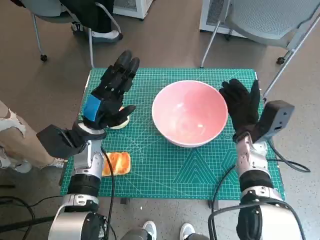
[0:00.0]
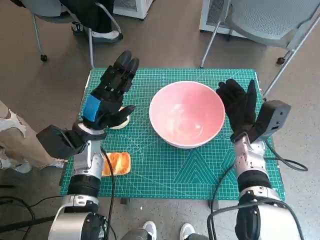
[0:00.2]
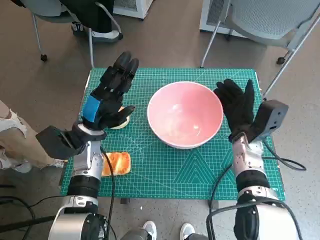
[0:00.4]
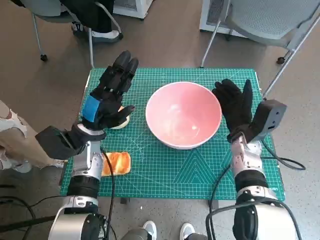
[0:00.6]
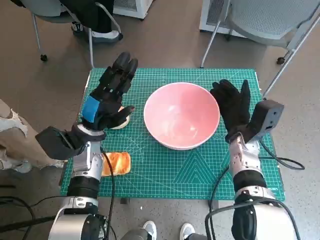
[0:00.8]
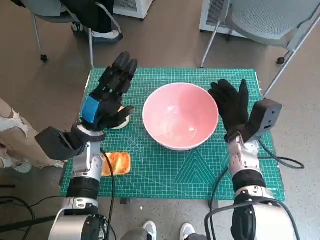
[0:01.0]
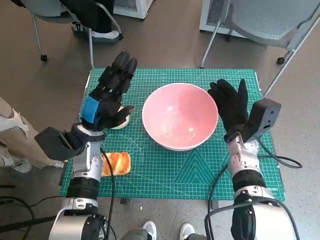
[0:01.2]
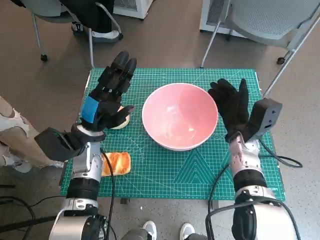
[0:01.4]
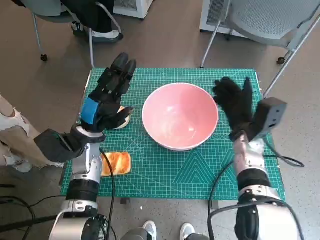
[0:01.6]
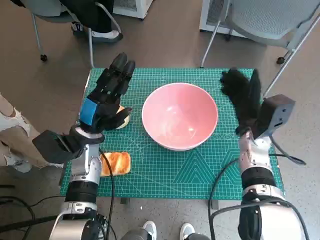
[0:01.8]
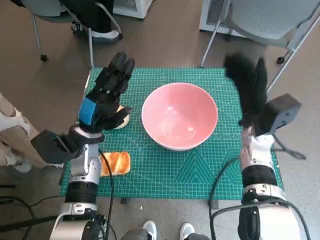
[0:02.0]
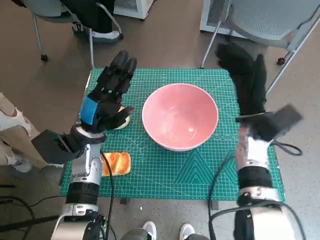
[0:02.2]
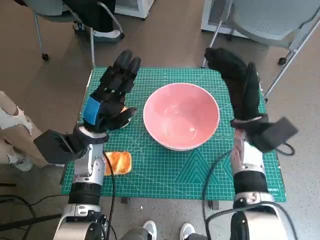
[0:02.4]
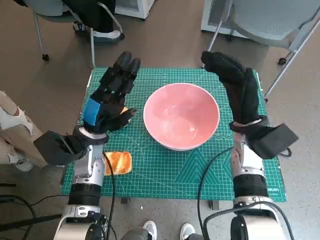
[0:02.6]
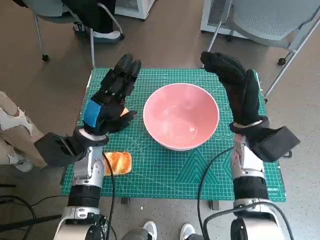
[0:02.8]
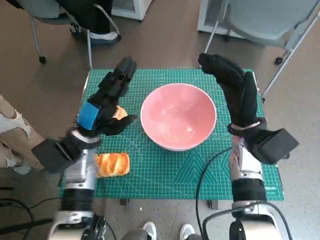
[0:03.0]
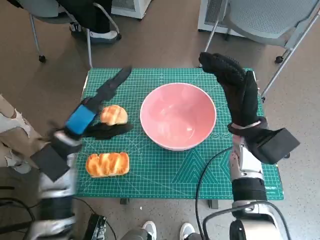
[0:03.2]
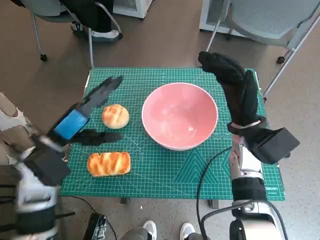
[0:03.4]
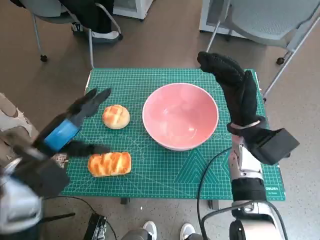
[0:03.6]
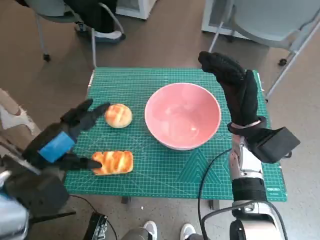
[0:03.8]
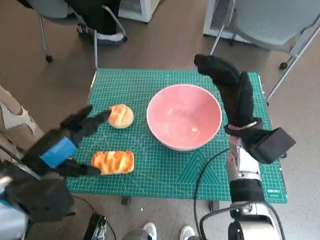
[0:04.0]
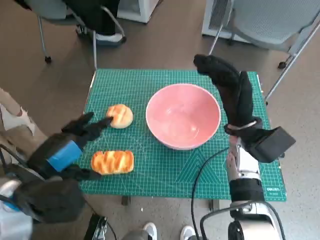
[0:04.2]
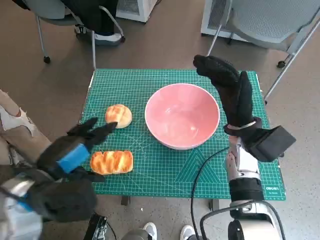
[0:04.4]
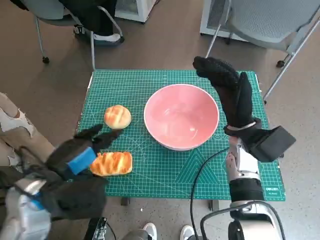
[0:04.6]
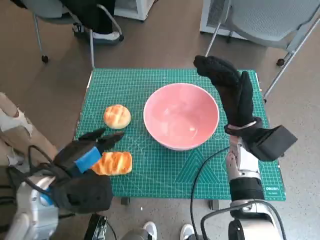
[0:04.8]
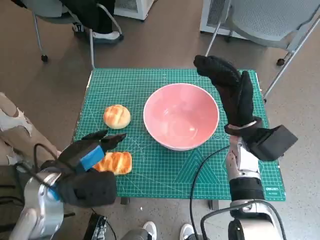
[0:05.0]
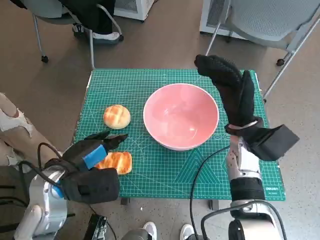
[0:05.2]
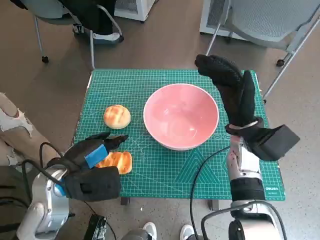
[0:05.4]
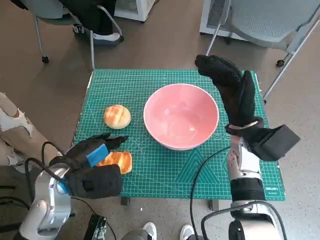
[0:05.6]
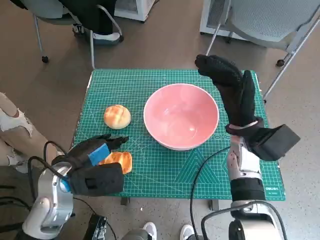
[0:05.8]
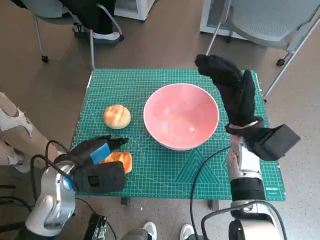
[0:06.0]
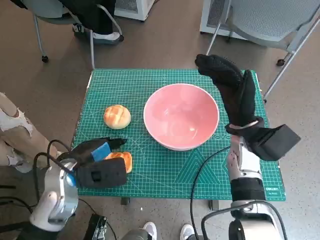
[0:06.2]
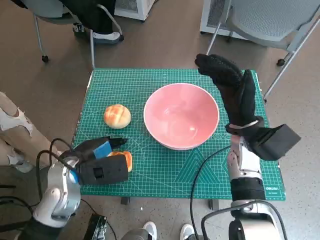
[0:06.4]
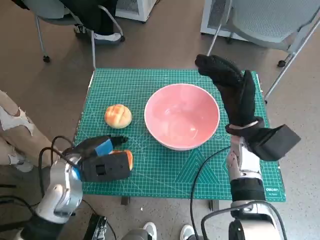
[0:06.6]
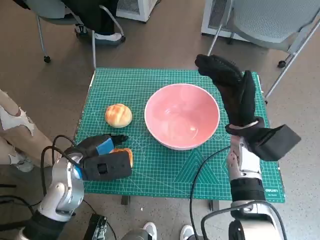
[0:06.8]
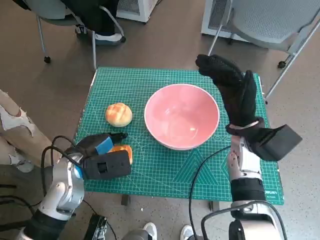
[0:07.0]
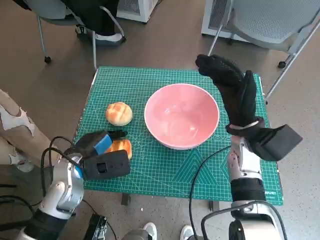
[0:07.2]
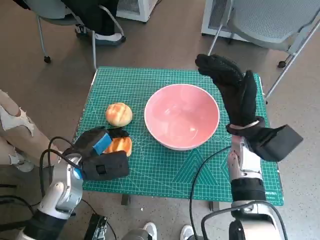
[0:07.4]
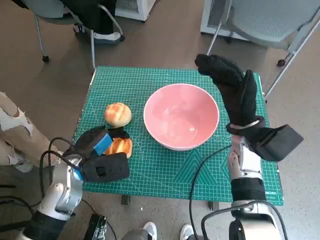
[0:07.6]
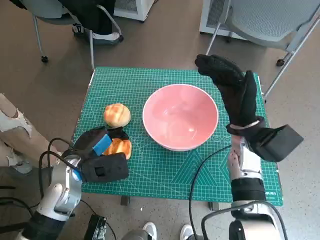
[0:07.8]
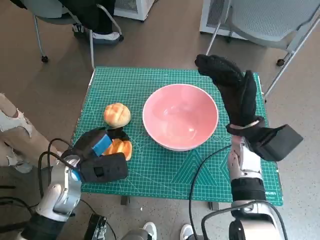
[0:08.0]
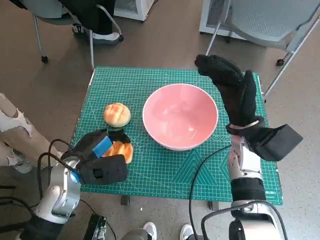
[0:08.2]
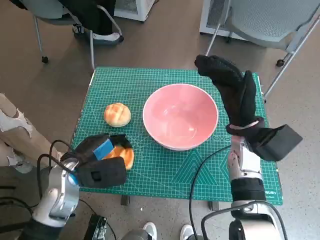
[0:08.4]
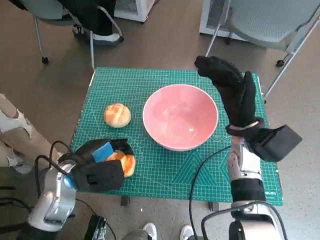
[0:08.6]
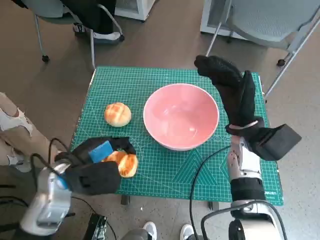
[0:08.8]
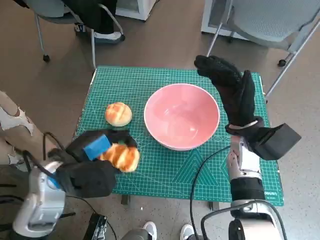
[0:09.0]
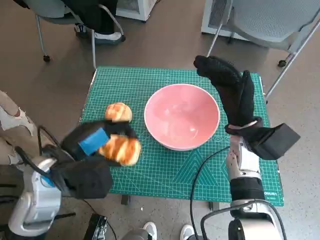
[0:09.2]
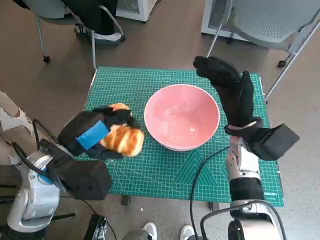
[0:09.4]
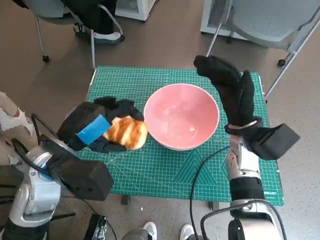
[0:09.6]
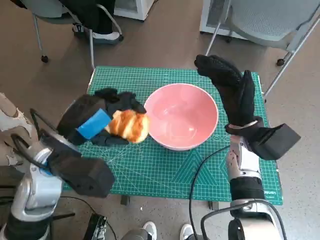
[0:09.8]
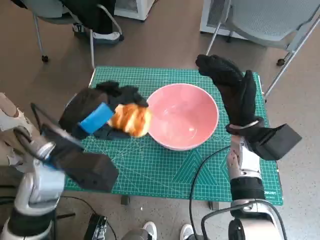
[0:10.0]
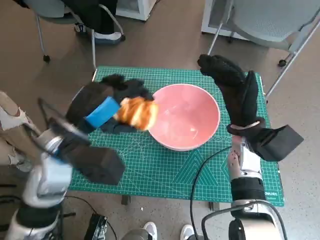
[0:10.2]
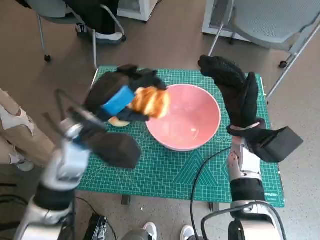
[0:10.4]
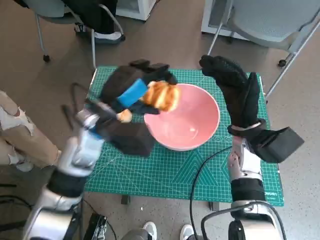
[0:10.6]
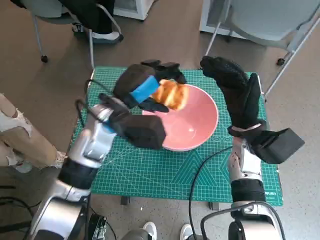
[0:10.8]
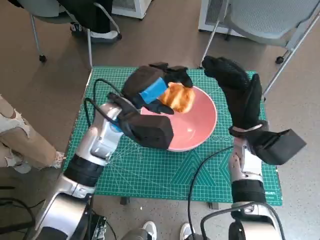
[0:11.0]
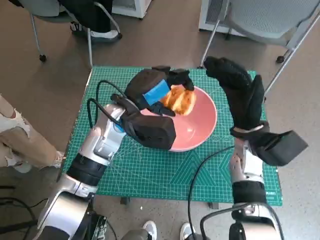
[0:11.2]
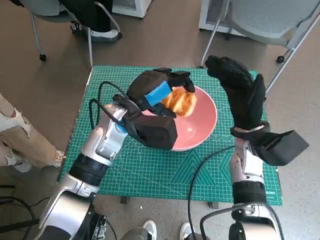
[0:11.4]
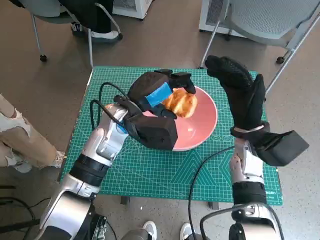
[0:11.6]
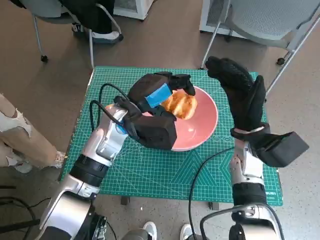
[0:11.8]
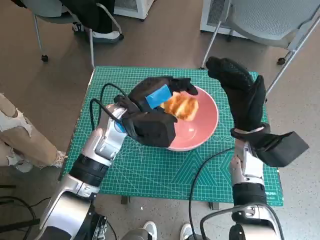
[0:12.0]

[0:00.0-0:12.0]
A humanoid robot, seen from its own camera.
Step, 0:01.8 to 0:07.6: Grasp the long bread with left hand.
0:00.0 to 0:01.6: The hands stay close to where they were, moving slightly.
0:01.6 to 0:03.0: The right hand shifts approximately 5 cm upward.
0:03.0 to 0:04.4: The left hand goes approximately 15 cm backward and upward.
0:04.4 to 0:06.0: The left hand shifts some 5 cm downward.
0:06.0 to 0:07.6: The hands stay close to where they were, moving slightly.
0:07.6 to 0:09.0: The left hand goes approximately 5 cm upward.
0:09.0 to 0:10.4: The left hand is displaced upward by roughly 5 cm.
0:10.4 to 0:12.0: The left hand is displaced forward and to the right by some 10 cm.

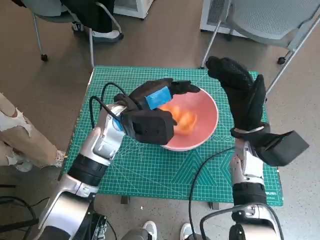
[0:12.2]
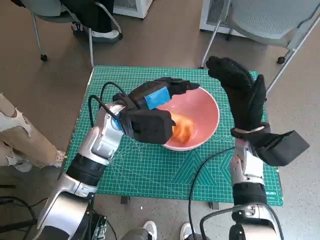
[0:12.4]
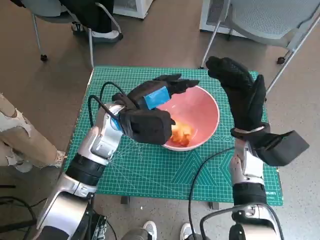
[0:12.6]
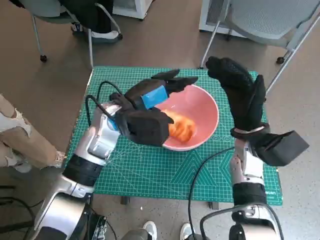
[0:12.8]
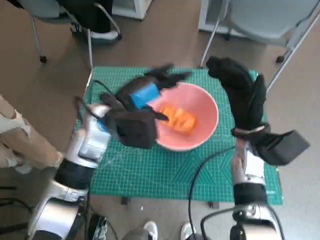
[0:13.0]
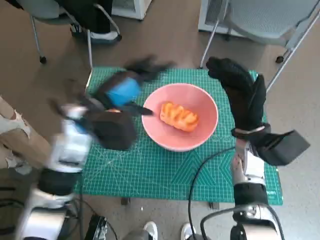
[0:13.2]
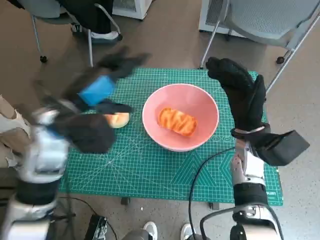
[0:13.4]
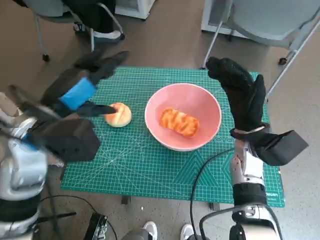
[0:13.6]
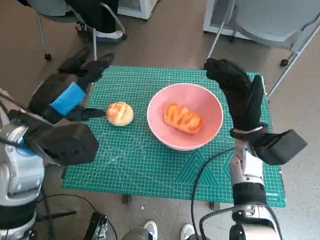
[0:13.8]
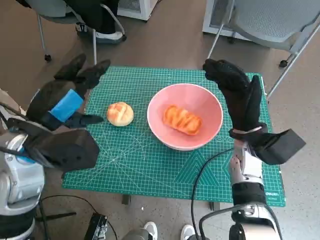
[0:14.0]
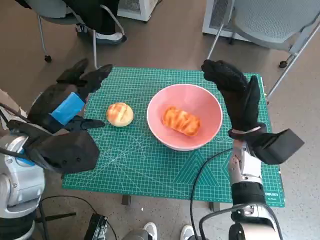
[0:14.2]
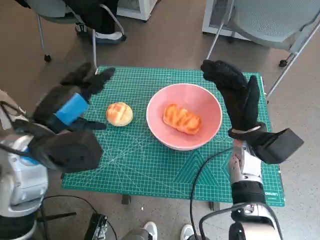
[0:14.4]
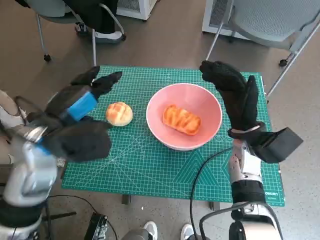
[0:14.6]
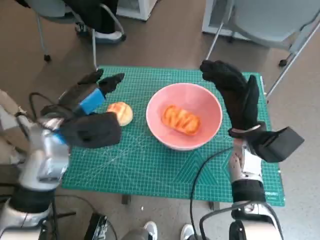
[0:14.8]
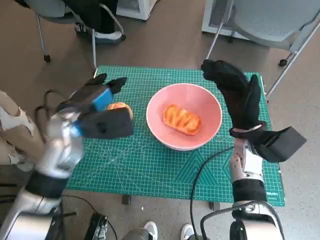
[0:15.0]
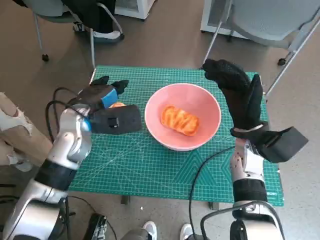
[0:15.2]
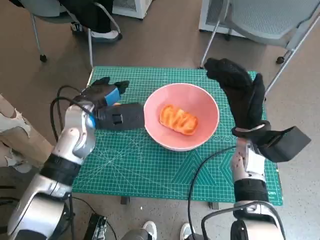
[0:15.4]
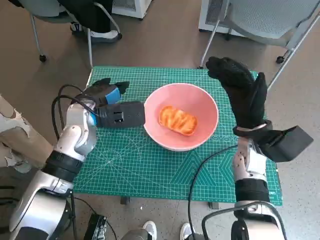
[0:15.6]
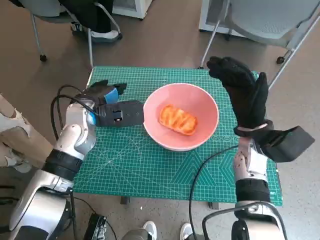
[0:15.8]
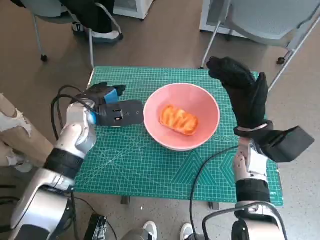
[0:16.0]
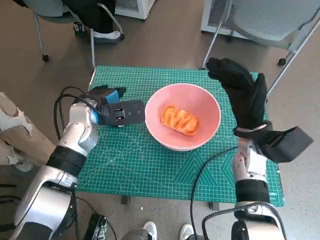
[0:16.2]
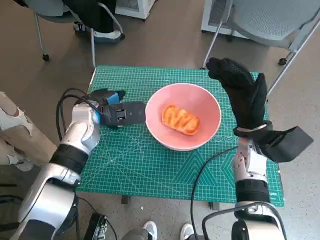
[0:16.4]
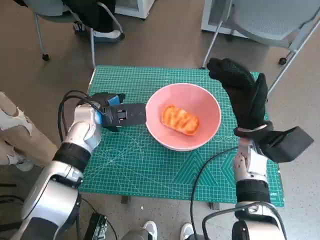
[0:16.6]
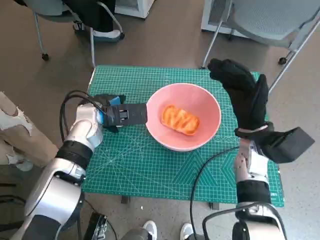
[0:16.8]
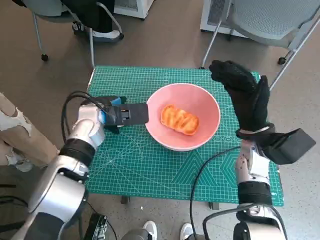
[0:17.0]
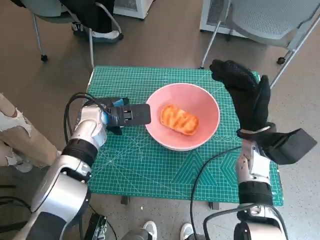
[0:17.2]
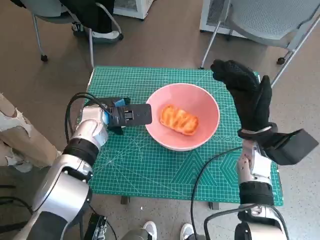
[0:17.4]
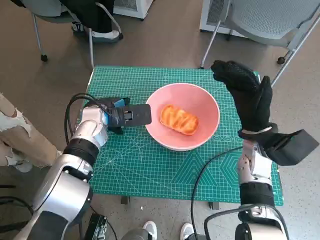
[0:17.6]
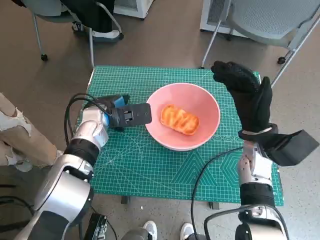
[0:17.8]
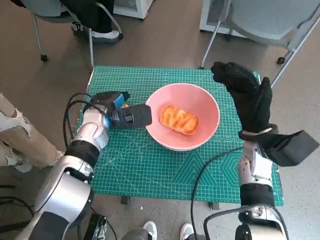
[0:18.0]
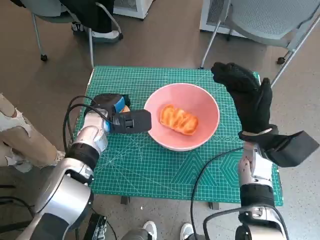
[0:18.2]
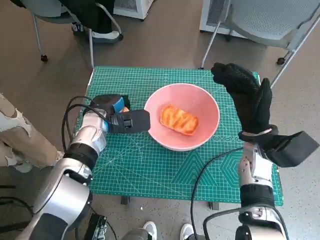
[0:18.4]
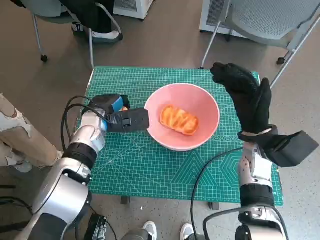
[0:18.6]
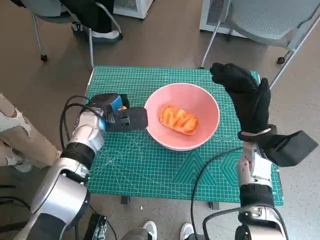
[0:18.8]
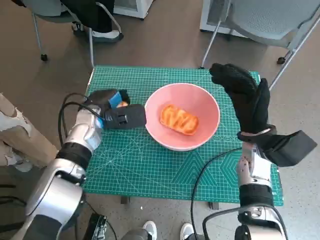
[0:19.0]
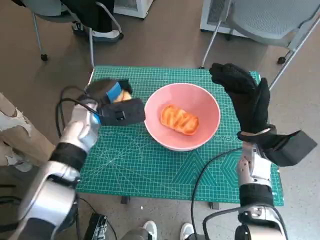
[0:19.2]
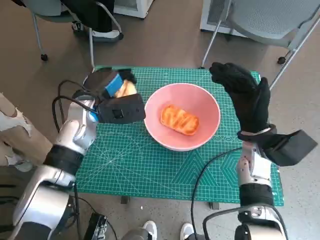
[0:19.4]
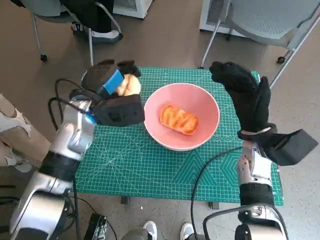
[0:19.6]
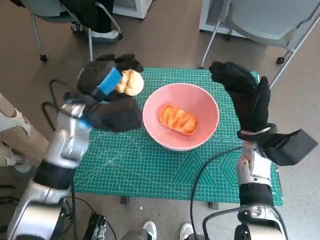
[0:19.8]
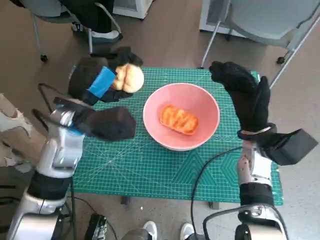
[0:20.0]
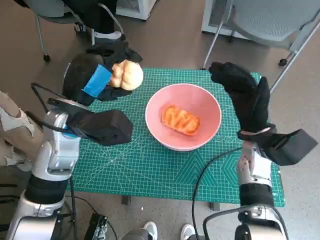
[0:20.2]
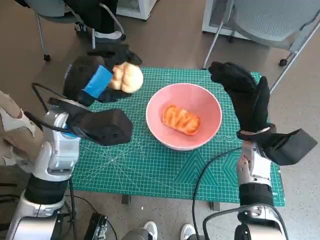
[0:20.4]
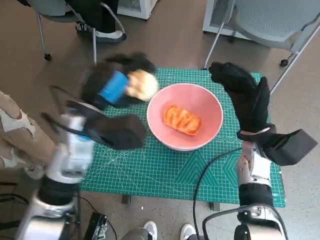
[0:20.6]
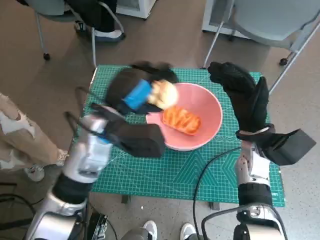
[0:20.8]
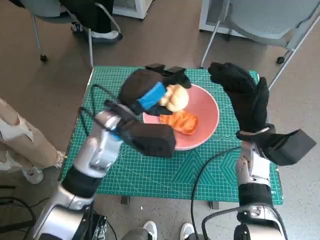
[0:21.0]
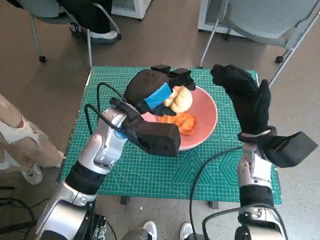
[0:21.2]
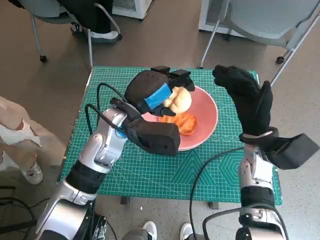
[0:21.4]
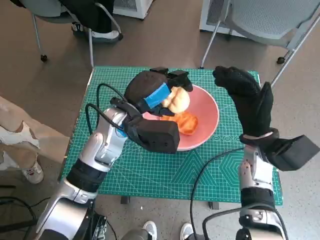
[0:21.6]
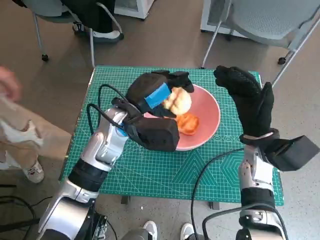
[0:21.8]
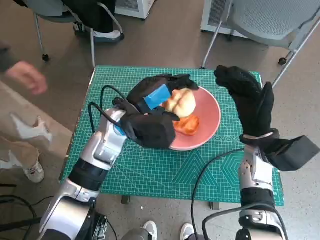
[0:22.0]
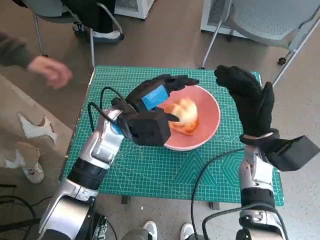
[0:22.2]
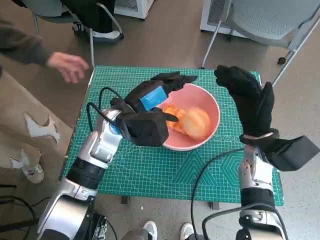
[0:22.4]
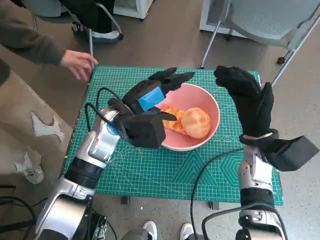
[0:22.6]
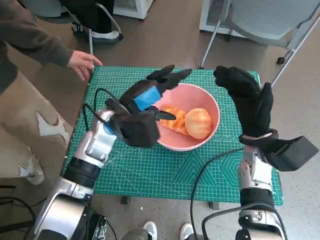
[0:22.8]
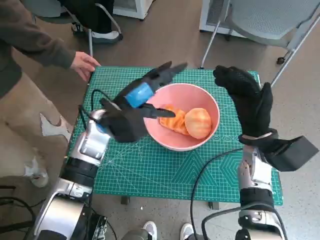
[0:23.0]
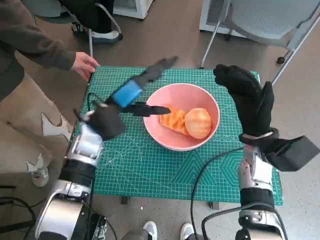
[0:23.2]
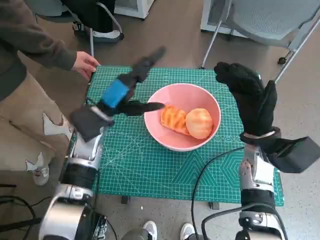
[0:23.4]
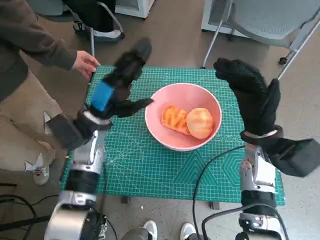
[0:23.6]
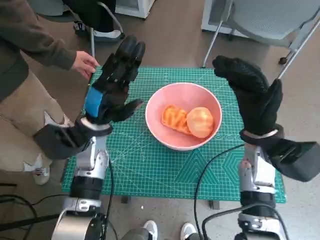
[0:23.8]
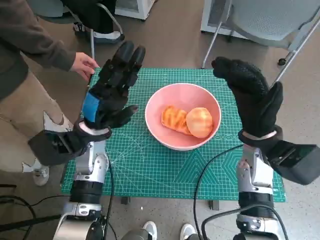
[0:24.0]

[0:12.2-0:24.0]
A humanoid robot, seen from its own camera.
Step, 0:13.0 to 0:18.2: Grasp the round bread with left hand.
Step, 0:18.4 to 0:22.4: Place the round bread in pink bowl with left hand.
0:12.2 to 0:13.6: The left hand moves to the left, backward and upward, about 15 cm.
0:13.6 to 0:15.2: The left hand shifts roughly 10 cm downward and forward.
0:15.2 to 0:16.6: The hands stay close to where they were, moving slightly.
0:16.6 to 0:18.2: There are only small adjustments of the hands.
0:18.2 to 0:19.6: The left hand shifts some 5 cm upward.
0:19.6 to 0:21.0: The left hand heads to the right, covering some 5 cm.
0:22.6 to 0:24.0: The left hand travels to the left by some 5 cm.
